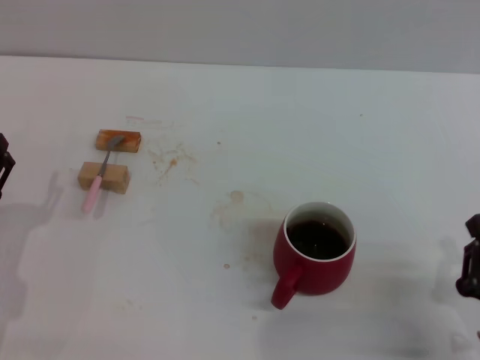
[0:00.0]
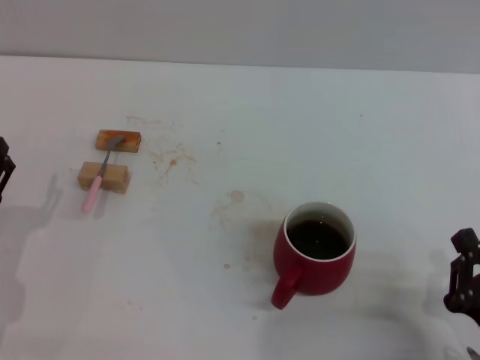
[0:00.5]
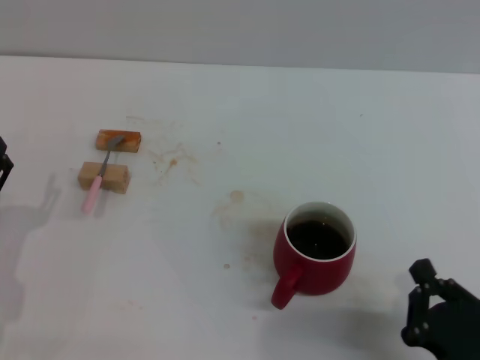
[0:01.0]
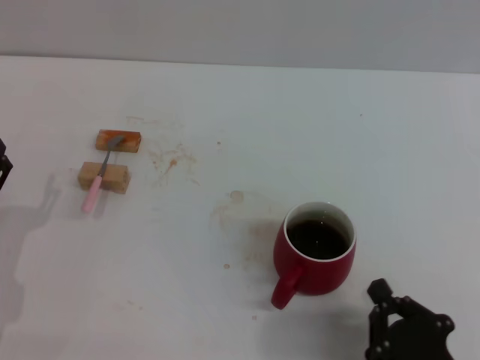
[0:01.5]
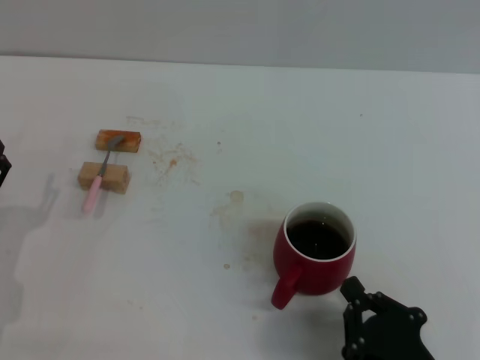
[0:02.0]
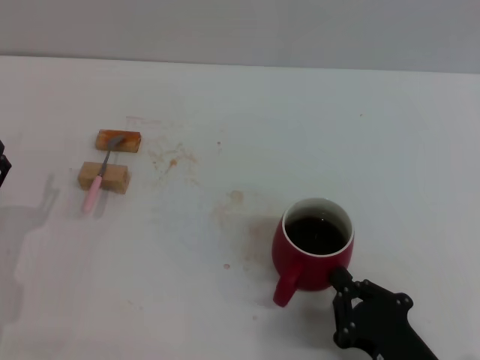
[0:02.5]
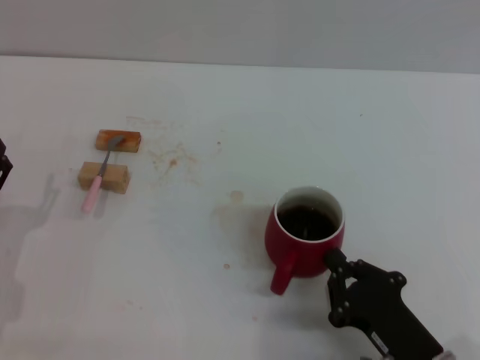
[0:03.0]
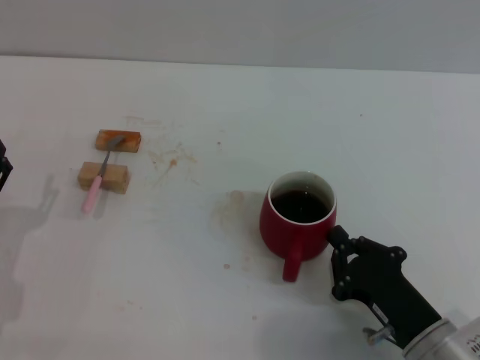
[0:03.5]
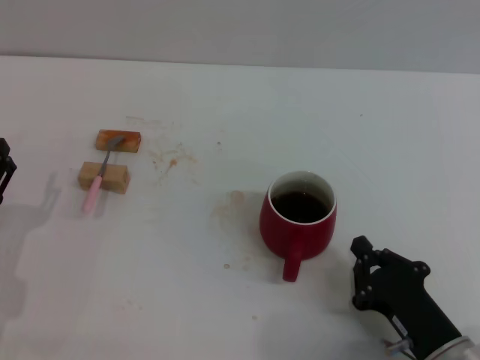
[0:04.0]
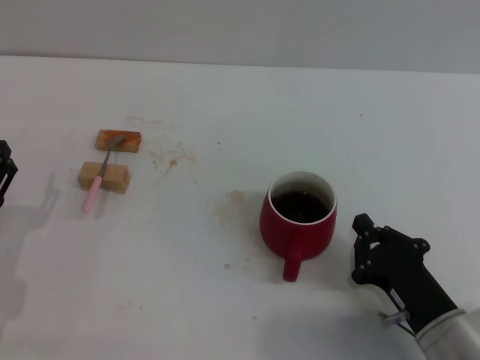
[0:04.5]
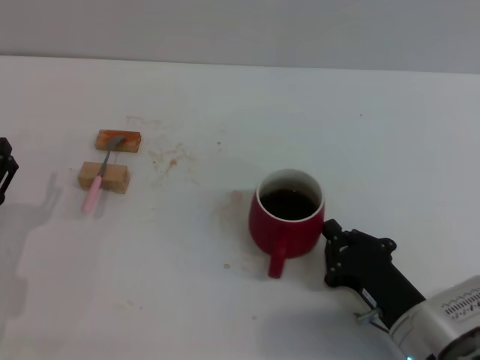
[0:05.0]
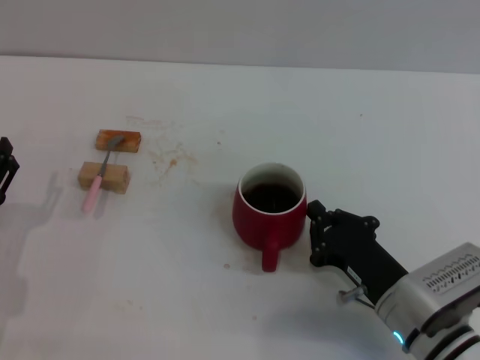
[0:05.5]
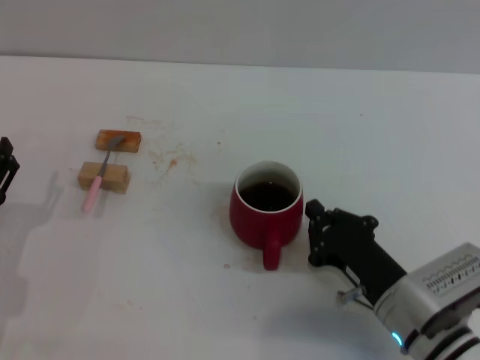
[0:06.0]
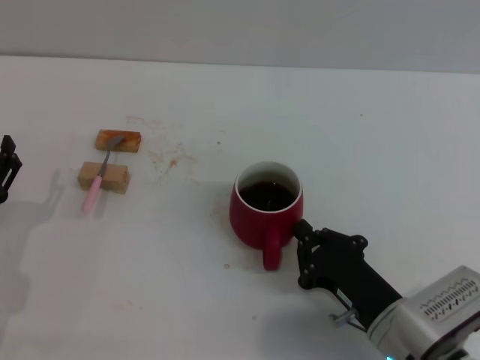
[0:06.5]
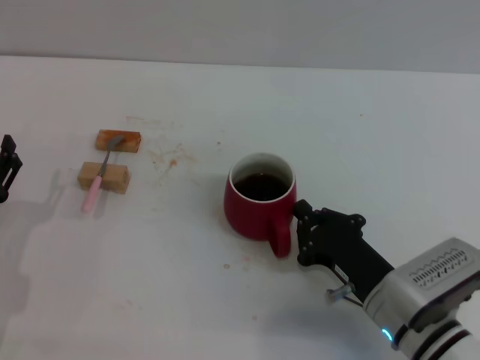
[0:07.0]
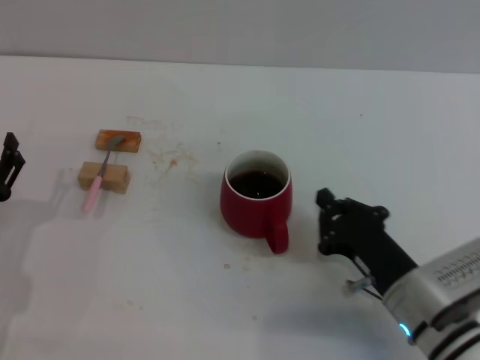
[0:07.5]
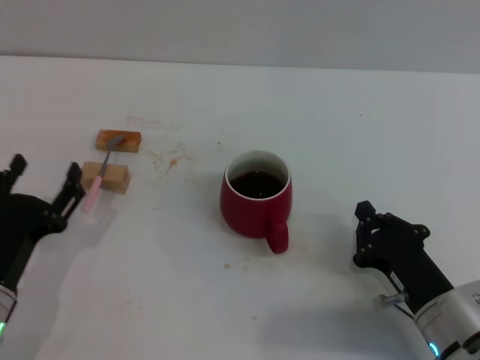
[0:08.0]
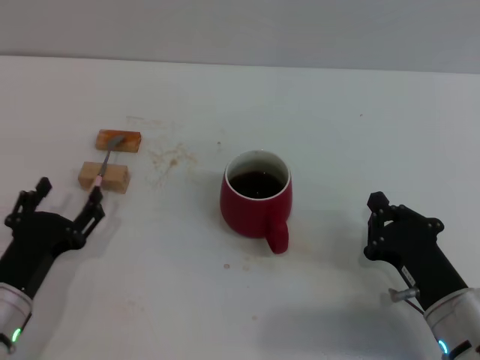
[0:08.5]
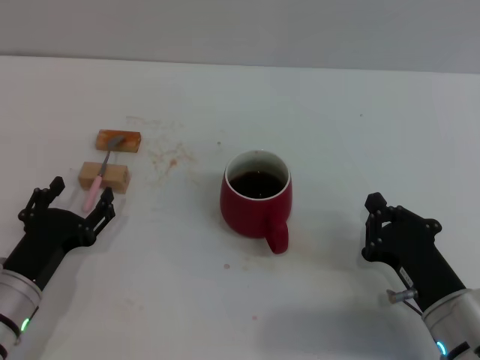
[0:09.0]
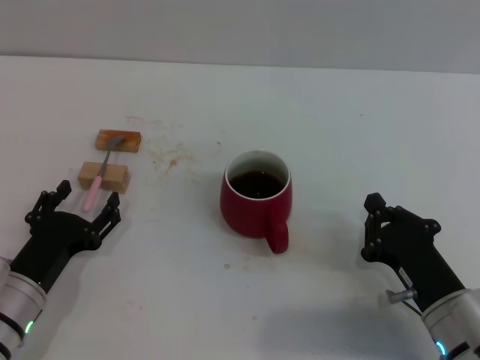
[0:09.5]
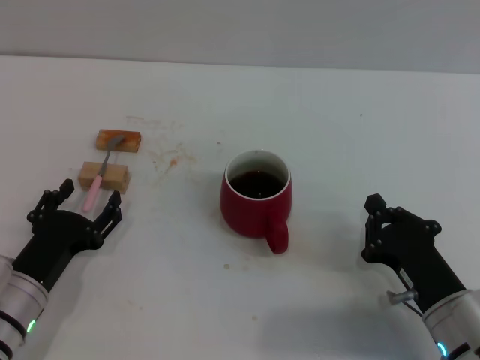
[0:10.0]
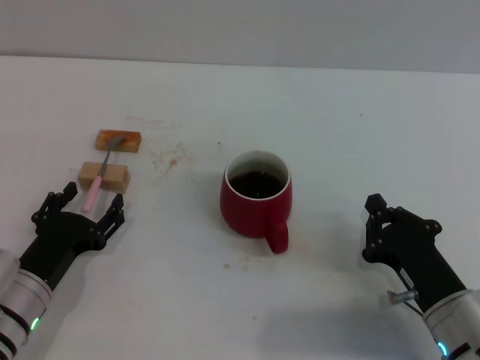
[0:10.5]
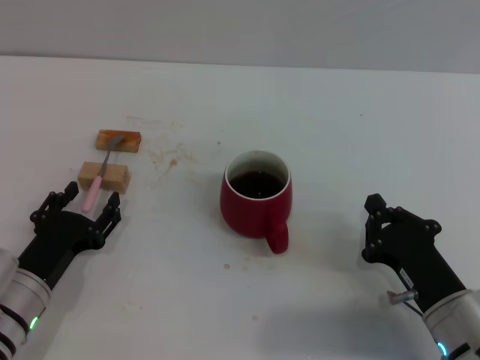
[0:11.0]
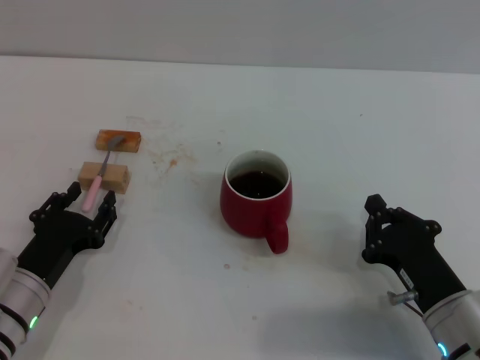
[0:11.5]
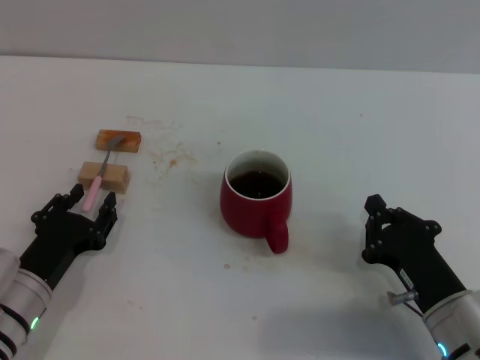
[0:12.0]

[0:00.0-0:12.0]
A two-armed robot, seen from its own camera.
Task of the whole recording: Move the red cup to the center, lift the pink spoon, stir it three times in the cup, and put the spoon into the cup.
Step, 0:00.0 to 0:08.0: Move the cup with coffee to the center of view with the right gripper.
0:00.0 to 0:02.0: The right gripper heads to the left, covering some 10 cm.
0:02.0 to 0:04.0: The right gripper goes roughly 5 cm forward.
0:04.0 to 0:06.0: The right gripper shifts about 5 cm forward.
0:06.0 to 0:08.0: There are only small adjustments of the grippers.
0:08.0 to 0:10.0: The grippers stay close to where they were, moving slightly.
0:10.0 to 0:12.0: The left gripper closes up.

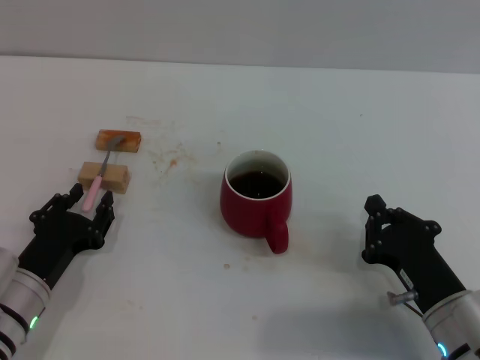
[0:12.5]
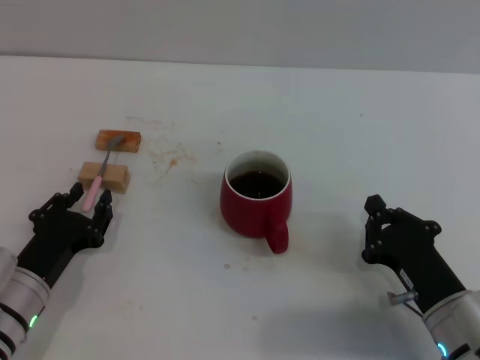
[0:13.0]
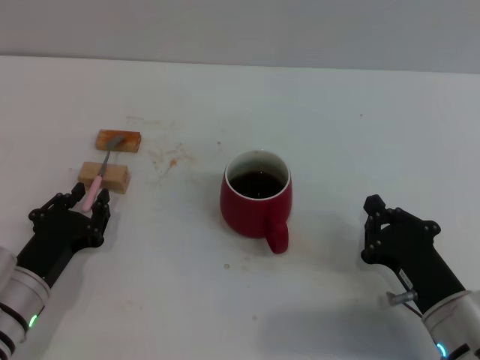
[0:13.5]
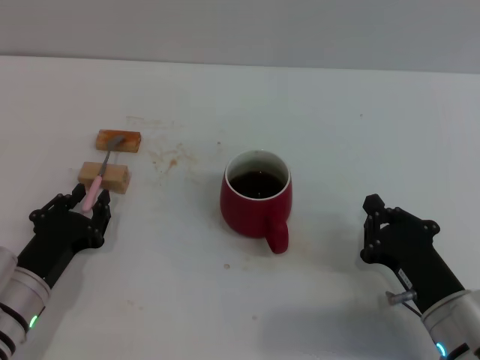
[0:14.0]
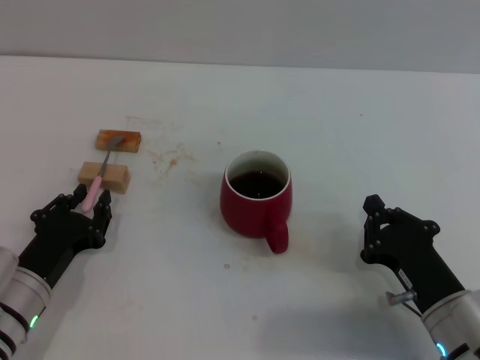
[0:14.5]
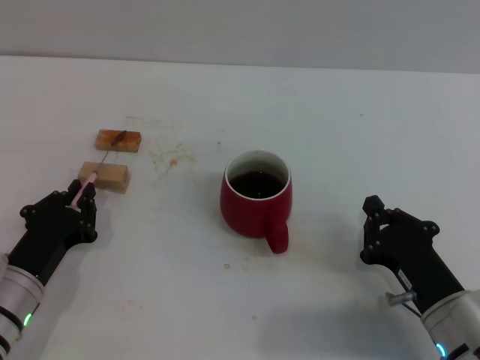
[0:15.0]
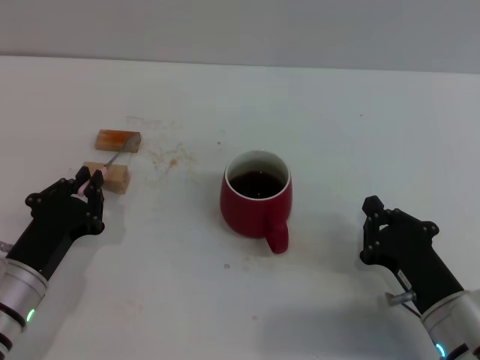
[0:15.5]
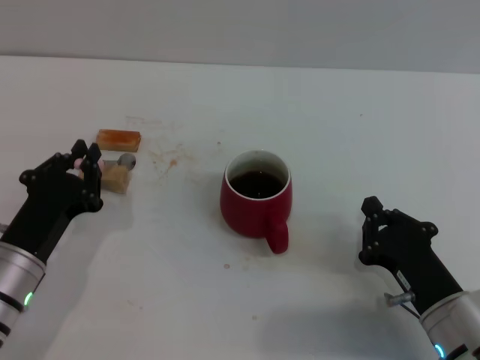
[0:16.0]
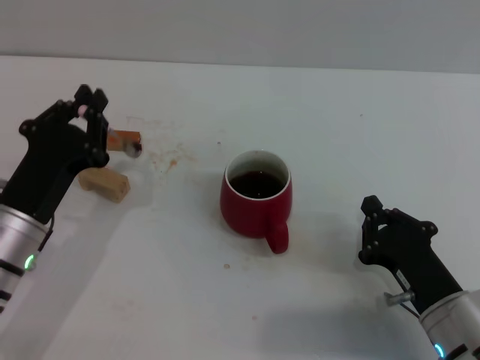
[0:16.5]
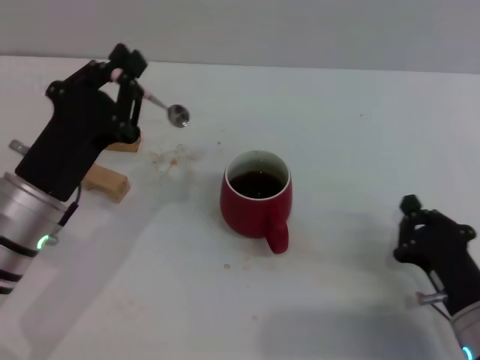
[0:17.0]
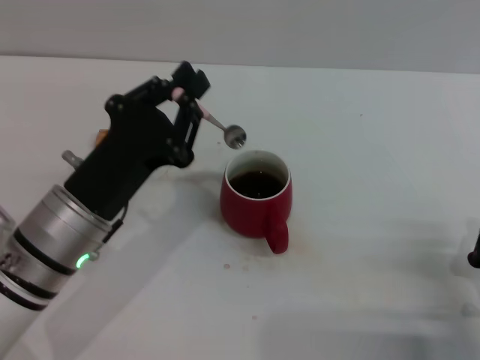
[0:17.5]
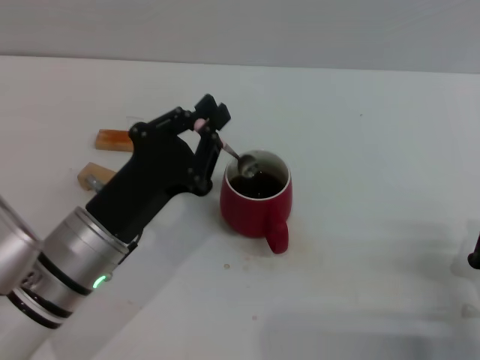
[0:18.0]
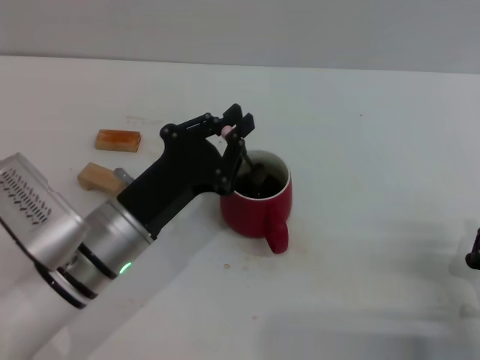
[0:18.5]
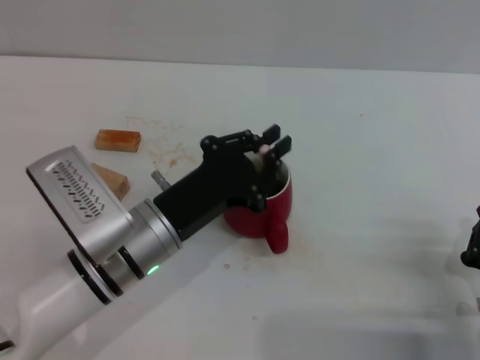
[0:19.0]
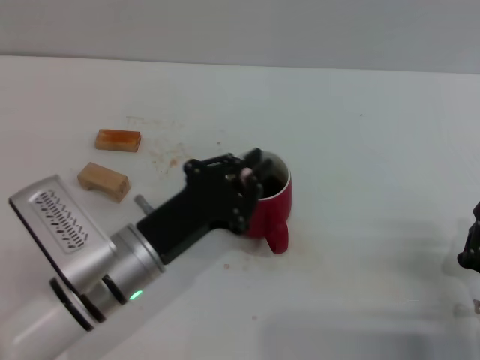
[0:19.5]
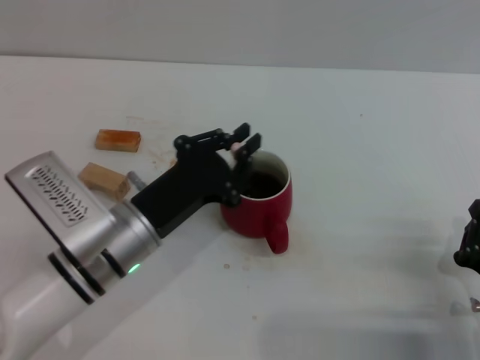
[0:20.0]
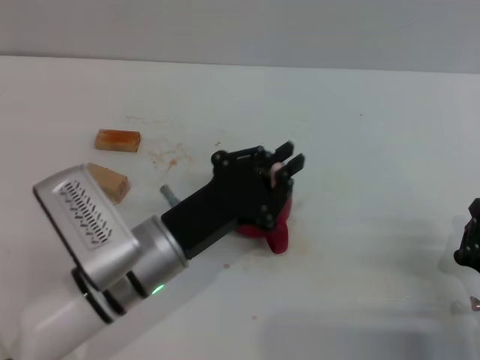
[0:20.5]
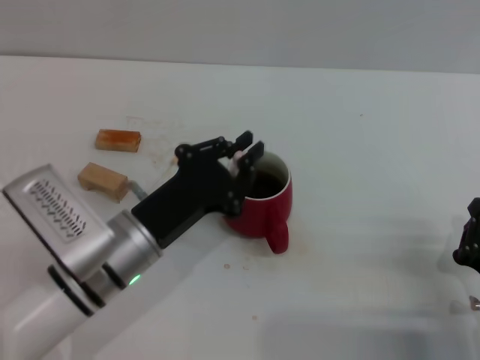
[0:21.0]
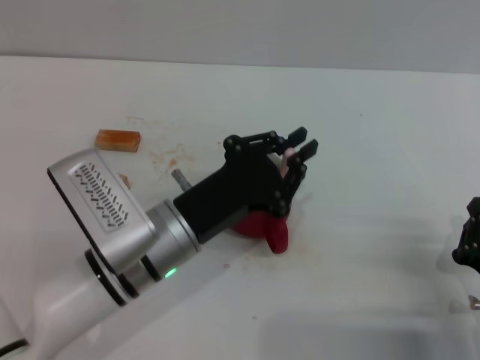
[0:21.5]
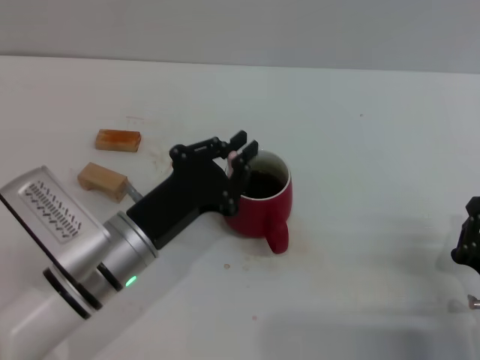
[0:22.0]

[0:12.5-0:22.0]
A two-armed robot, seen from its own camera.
Task of the whole recording: Move the red cup to the center, lift the pink spoon, stir it three times in the cup, and put the spoon into the cup.
Step, 0:12.5 to 0:16.5: Pick up the spoon with the left gripper.
0:12.5 to 0:14.5: The two grippers keep their place.
0:14.5 to 0:16.5: The left gripper shifts about 5 cm upward.
0:16.5 to 0:18.0: The grippers both shift to the right by some 5 cm.
0:18.0 to 0:22.0: There are only small adjustments of the grippers.

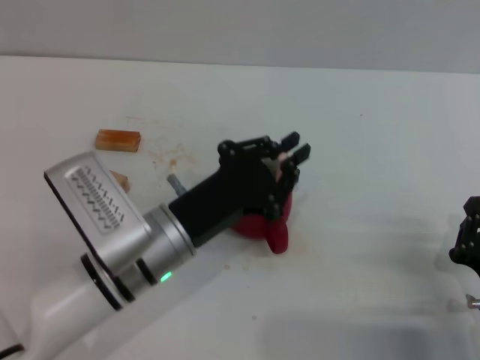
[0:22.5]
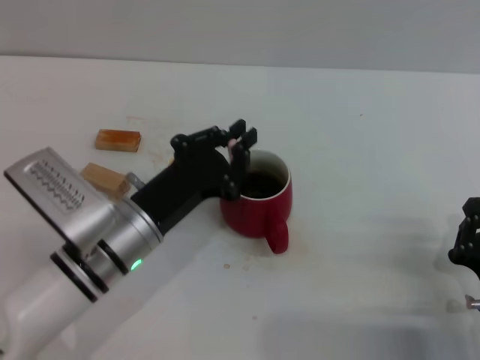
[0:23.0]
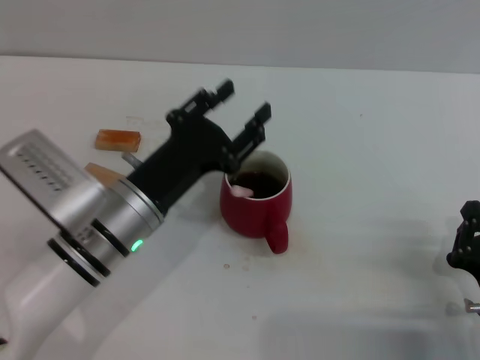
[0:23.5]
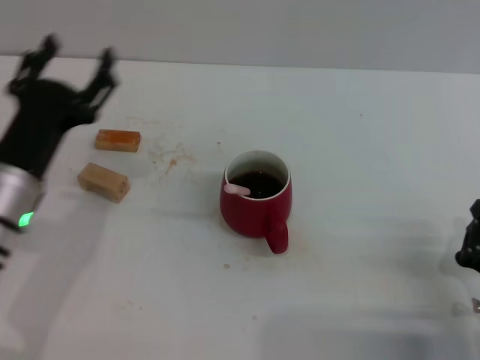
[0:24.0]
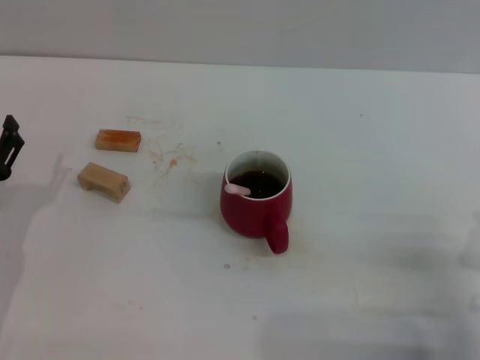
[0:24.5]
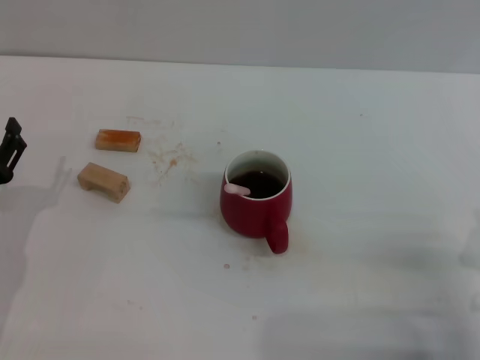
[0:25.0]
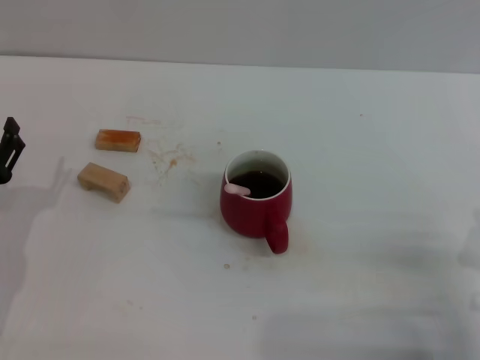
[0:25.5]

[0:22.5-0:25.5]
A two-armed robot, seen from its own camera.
Task of the whole recording: Move the red cup to the center, lift the pink spoon, stir it three times in the cup, and put the spoon into the cup.
0:22.5 to 0:24.0: The left gripper moves to the left, some 15 cm, and opens.
0:24.0 to 0:25.5: The left gripper travels to the left by some 5 cm.

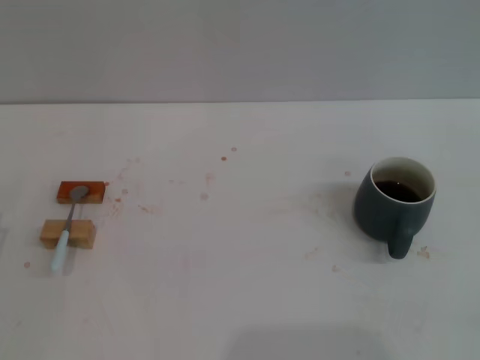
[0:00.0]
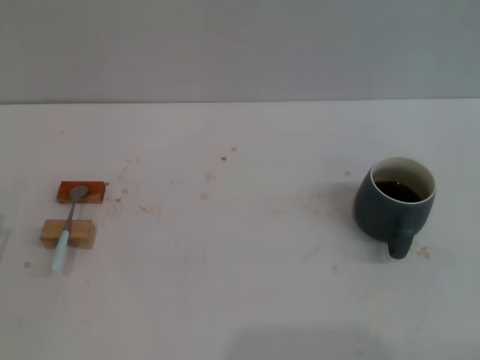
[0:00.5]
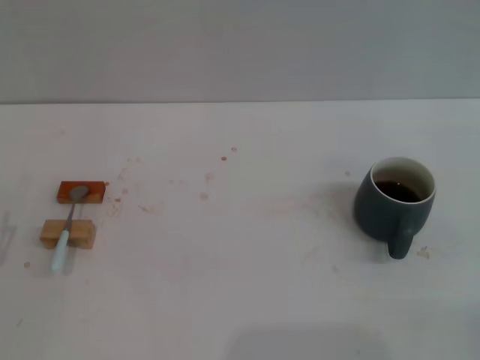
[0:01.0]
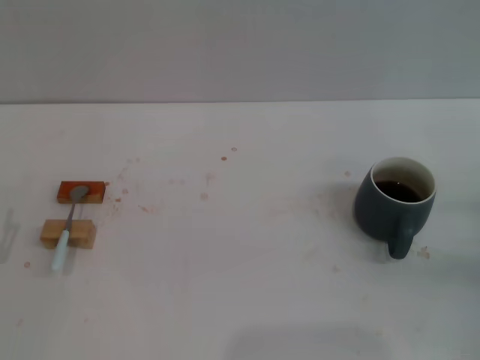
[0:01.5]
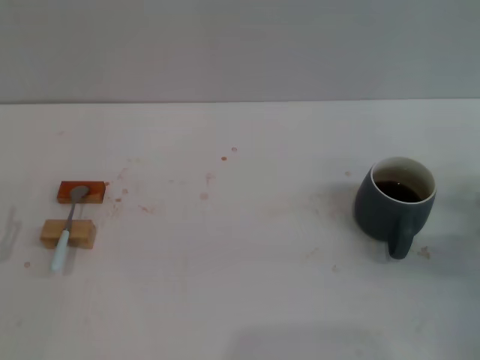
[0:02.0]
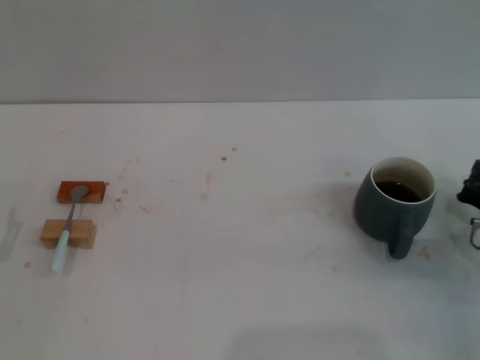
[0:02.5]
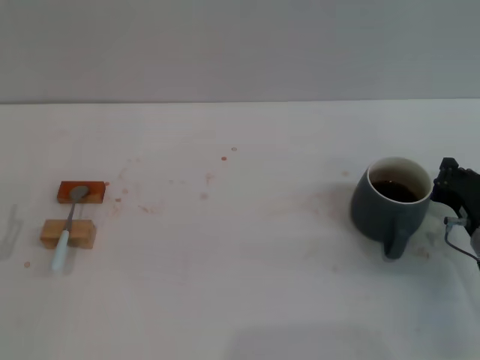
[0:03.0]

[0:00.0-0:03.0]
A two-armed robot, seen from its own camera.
Task of the whole recording: Move the grey cup to the center, lift the blue spoon, stir it three times in the cup, and put the spoon into the cup.
0:01.5 to 0:03.0: The right gripper is displaced to the left by about 10 cm.
